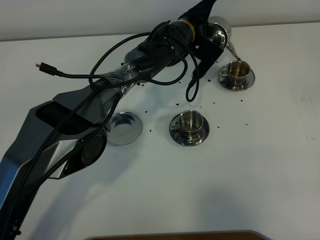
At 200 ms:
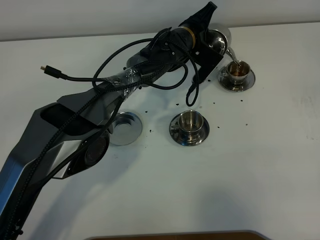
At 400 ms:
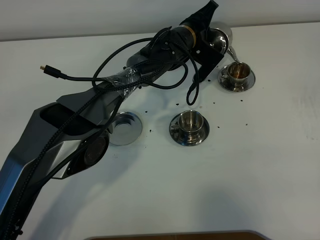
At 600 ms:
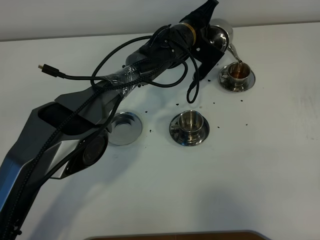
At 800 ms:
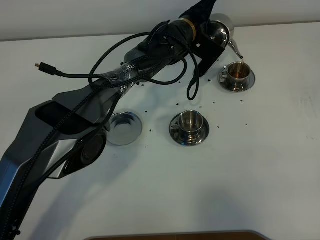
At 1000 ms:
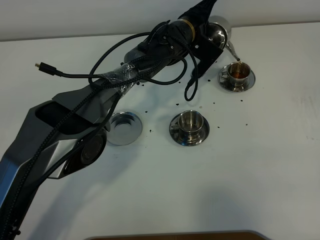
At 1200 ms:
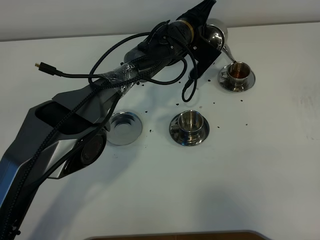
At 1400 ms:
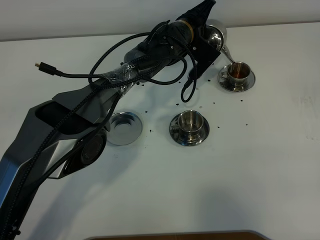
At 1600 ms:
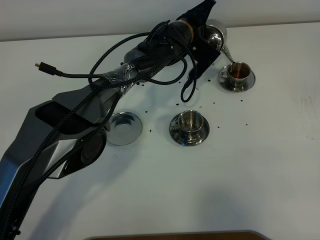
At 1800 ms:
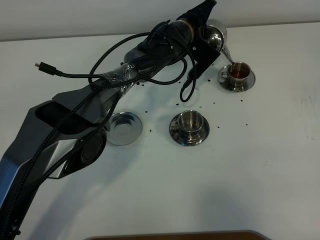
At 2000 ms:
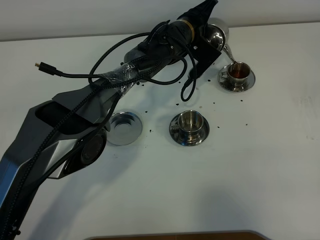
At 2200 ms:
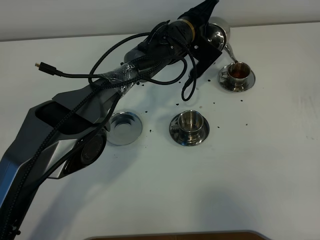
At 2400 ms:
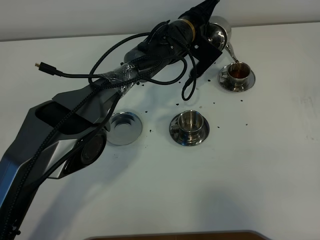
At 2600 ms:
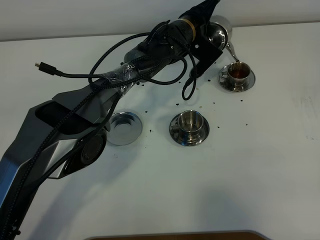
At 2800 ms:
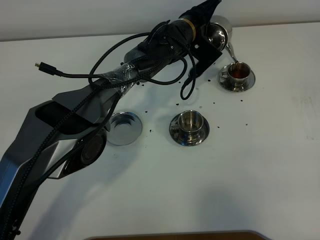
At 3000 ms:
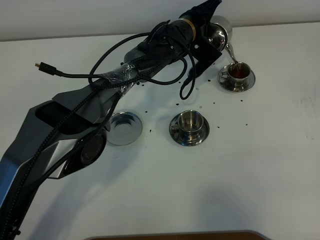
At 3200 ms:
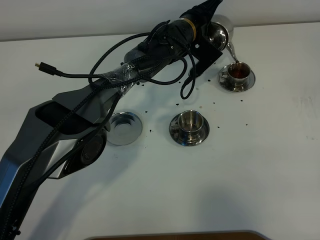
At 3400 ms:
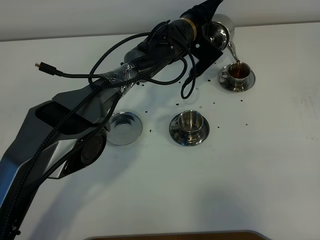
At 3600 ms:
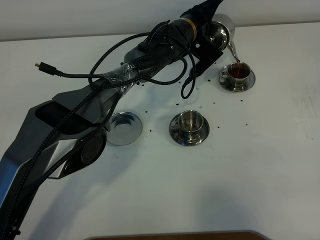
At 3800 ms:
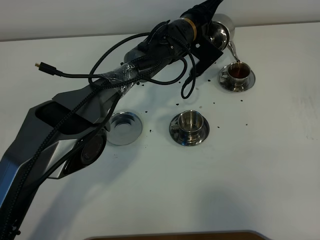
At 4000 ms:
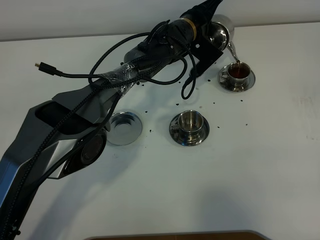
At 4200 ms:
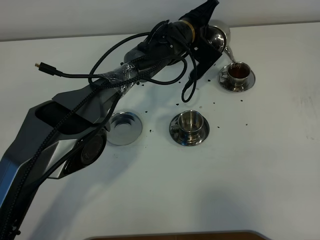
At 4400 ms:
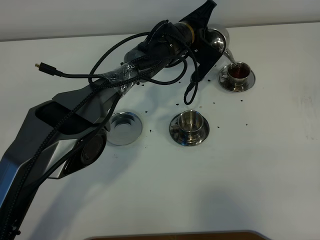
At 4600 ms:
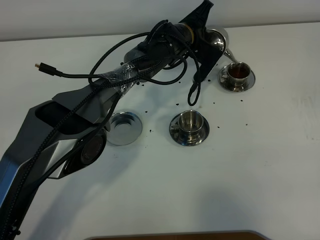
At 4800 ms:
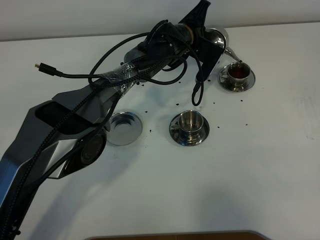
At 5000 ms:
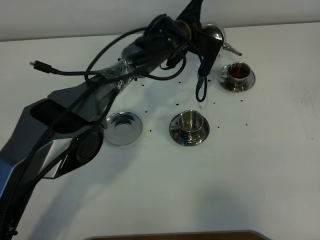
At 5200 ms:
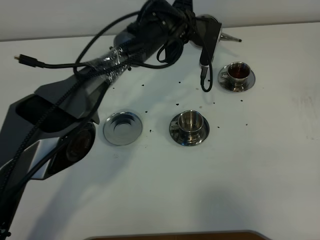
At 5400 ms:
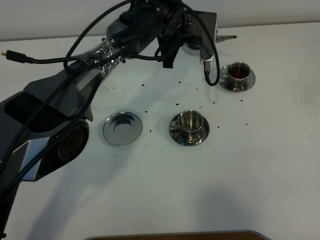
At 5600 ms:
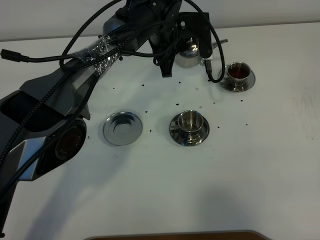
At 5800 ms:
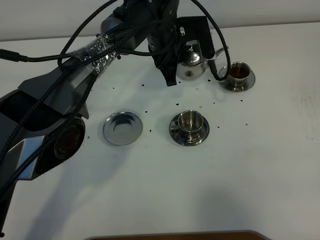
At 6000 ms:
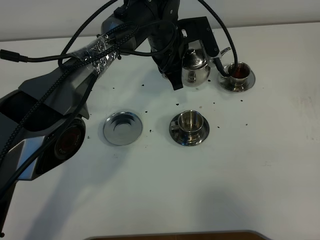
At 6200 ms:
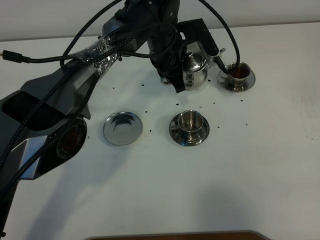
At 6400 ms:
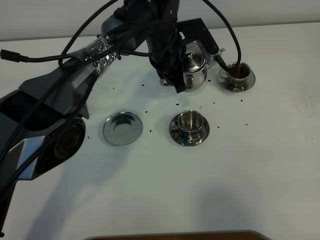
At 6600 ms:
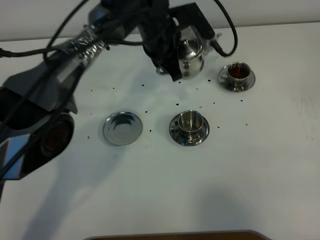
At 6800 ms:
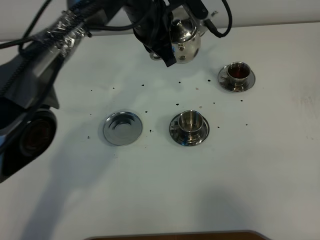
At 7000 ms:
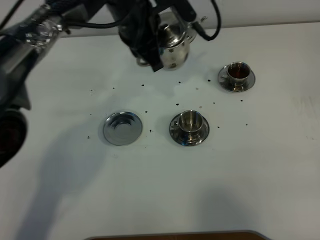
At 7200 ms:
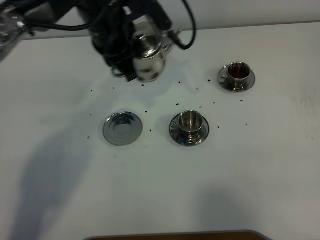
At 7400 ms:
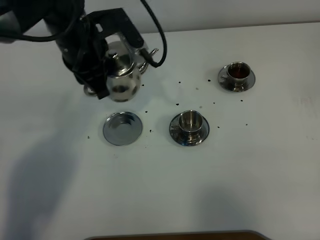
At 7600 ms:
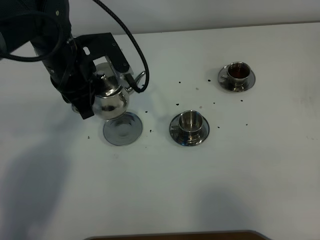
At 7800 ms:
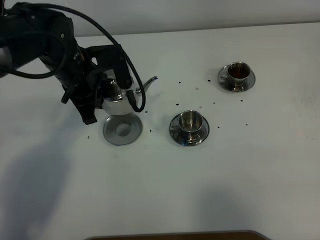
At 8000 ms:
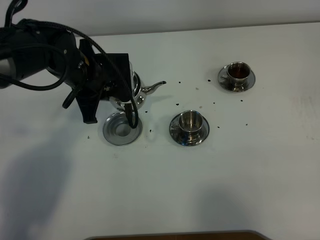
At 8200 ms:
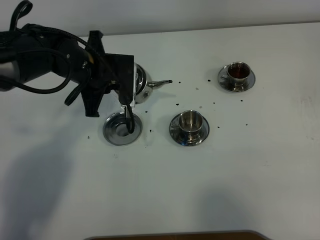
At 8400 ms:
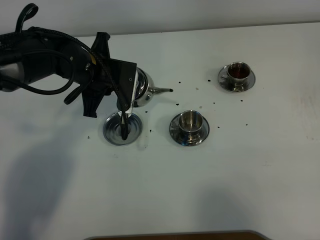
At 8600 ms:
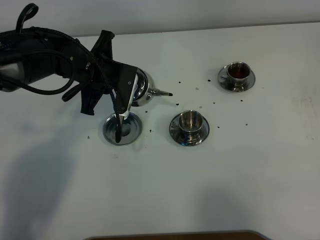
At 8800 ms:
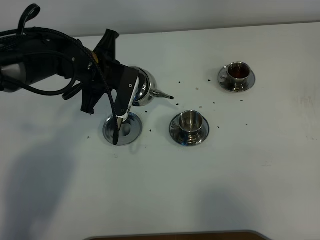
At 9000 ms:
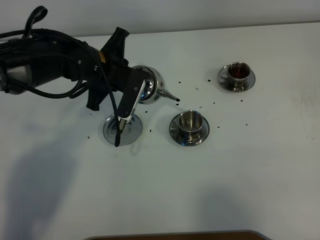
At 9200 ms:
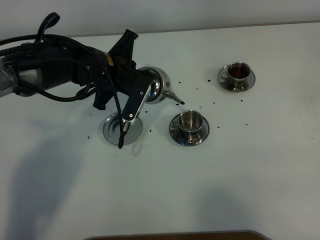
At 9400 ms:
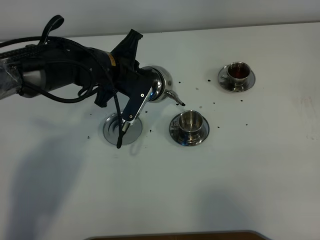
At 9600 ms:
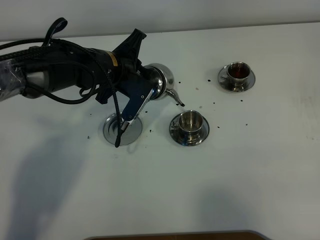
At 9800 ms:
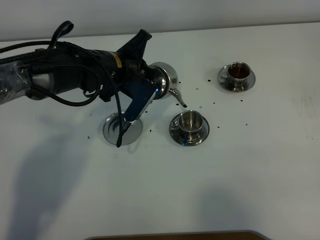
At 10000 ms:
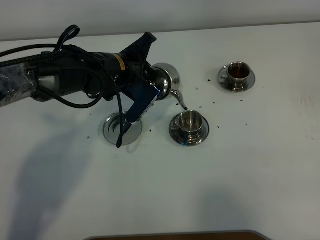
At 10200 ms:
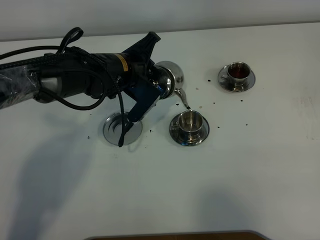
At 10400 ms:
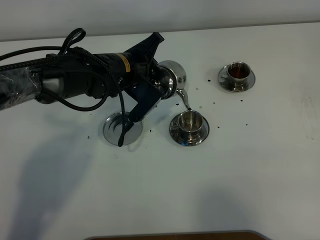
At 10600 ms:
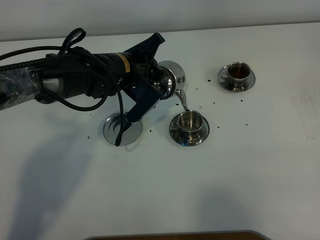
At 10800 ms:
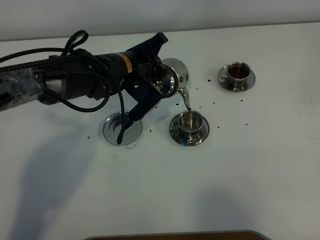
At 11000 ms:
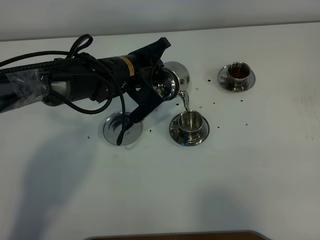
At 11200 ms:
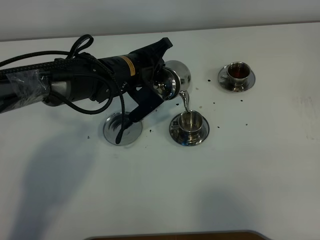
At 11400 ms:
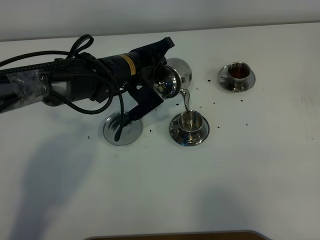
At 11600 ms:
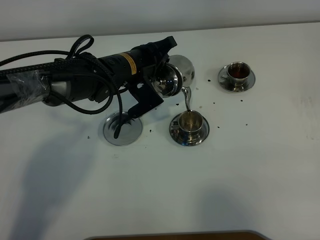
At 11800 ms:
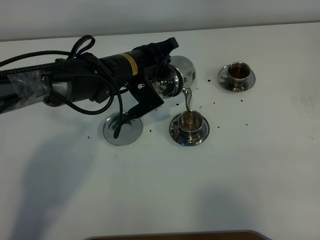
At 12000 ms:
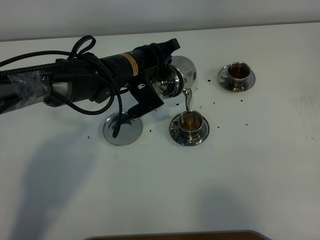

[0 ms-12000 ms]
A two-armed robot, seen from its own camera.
Task of the whole recording: grasp the stainless steel teapot and pour the tea into the two stainless steel teacups one by one, put the stainless steel teapot back in its original place.
0 ms to 1600 ms: Neither gripper changes place.
1600 ms to 4400 ms: The grippers stay close to where they were, moving slightly.
4400 ms to 6000 ms: The left gripper travels backward by about 5 cm.
6000 ms to 7600 ms: The left gripper is displaced to the left and backward by about 20 cm.
7600 ms to 9000 ms: The left gripper changes place by about 5 cm.

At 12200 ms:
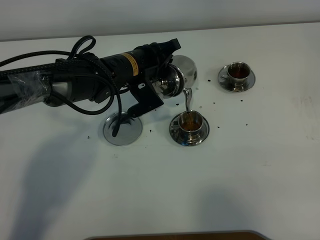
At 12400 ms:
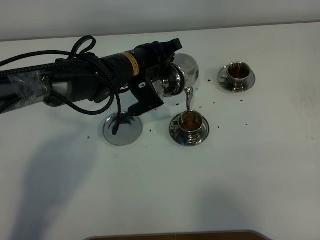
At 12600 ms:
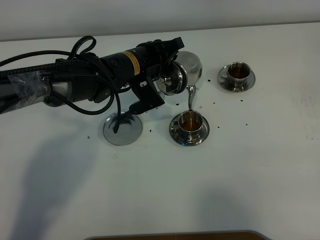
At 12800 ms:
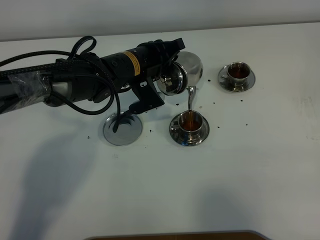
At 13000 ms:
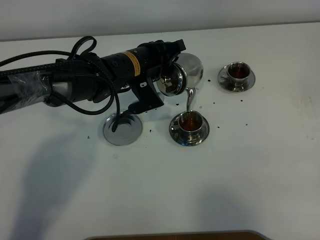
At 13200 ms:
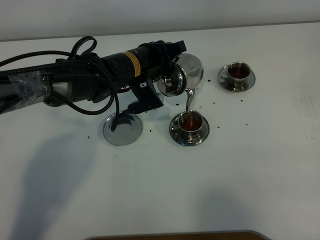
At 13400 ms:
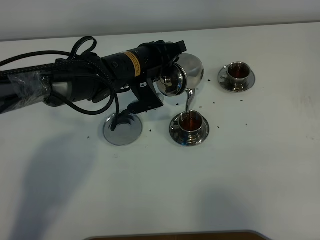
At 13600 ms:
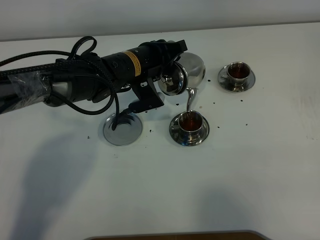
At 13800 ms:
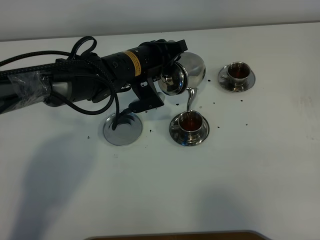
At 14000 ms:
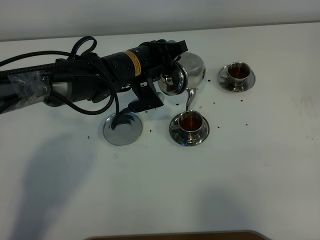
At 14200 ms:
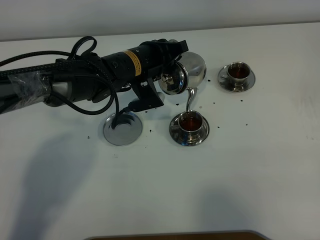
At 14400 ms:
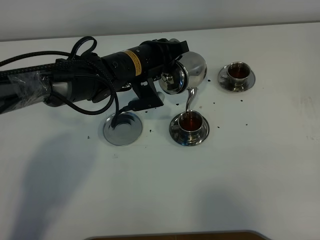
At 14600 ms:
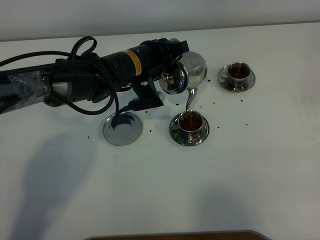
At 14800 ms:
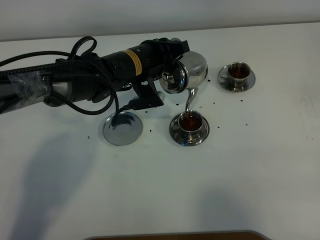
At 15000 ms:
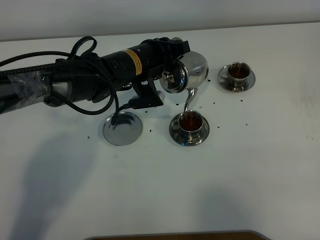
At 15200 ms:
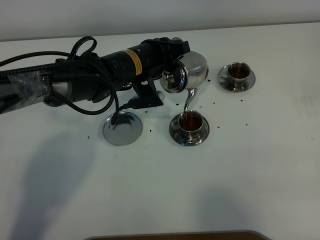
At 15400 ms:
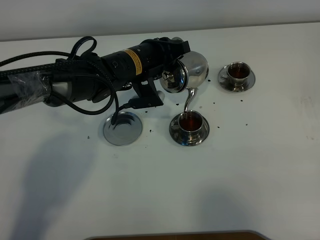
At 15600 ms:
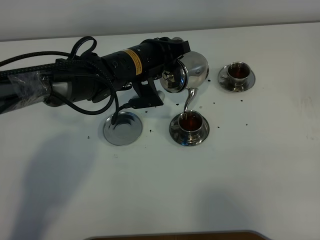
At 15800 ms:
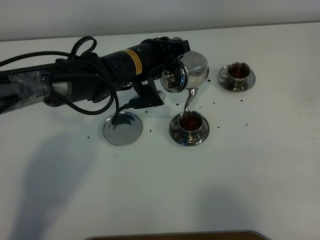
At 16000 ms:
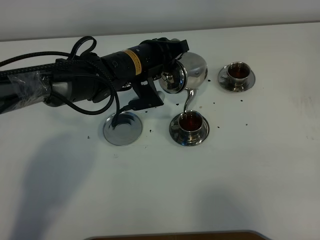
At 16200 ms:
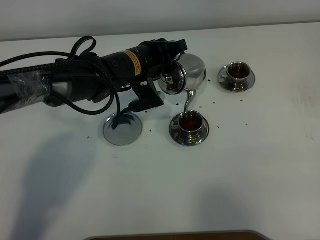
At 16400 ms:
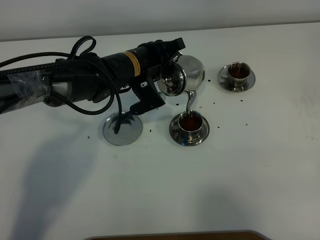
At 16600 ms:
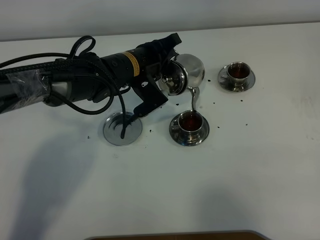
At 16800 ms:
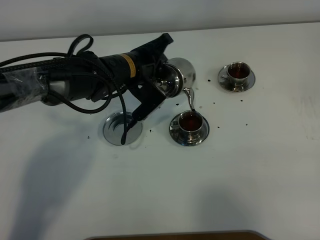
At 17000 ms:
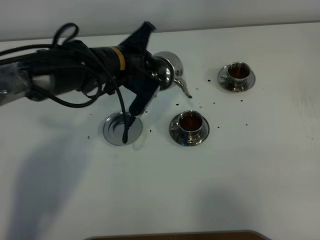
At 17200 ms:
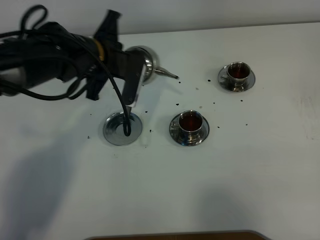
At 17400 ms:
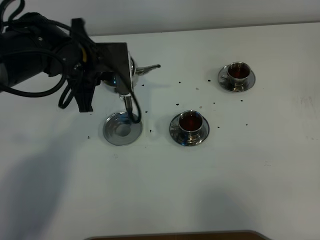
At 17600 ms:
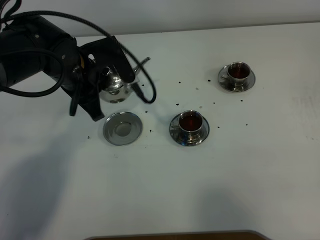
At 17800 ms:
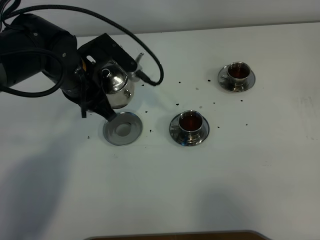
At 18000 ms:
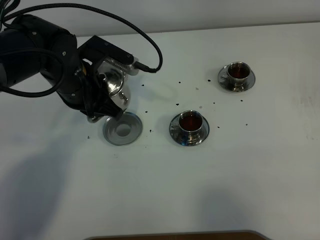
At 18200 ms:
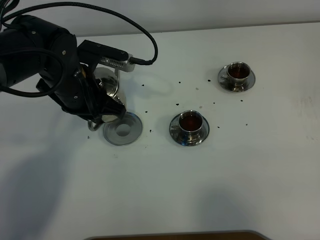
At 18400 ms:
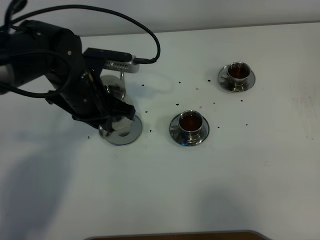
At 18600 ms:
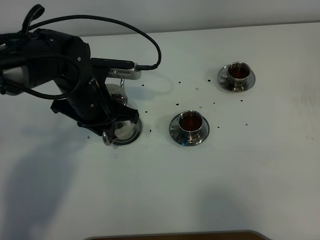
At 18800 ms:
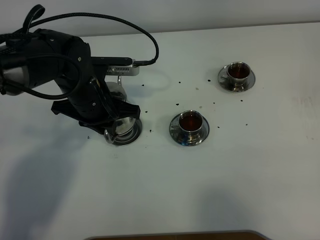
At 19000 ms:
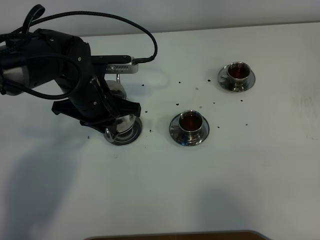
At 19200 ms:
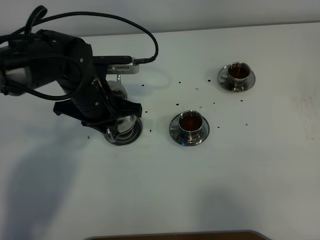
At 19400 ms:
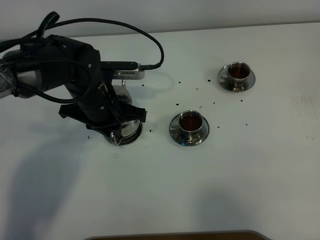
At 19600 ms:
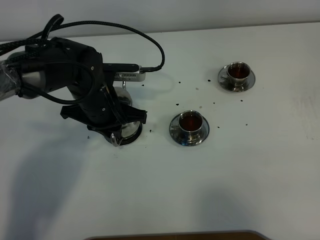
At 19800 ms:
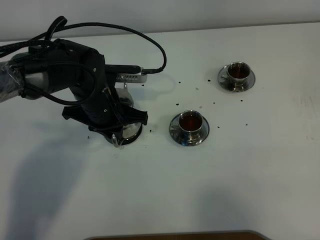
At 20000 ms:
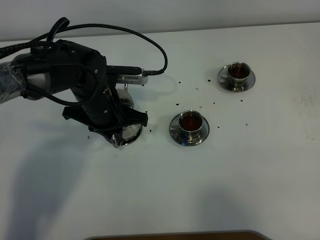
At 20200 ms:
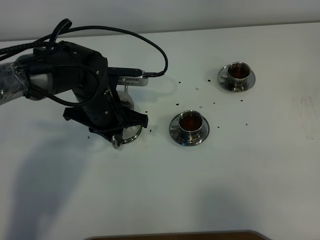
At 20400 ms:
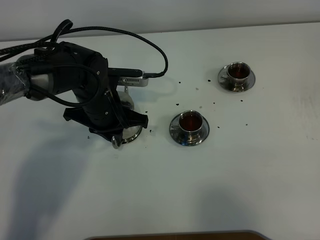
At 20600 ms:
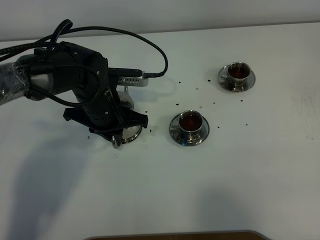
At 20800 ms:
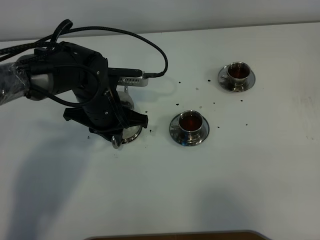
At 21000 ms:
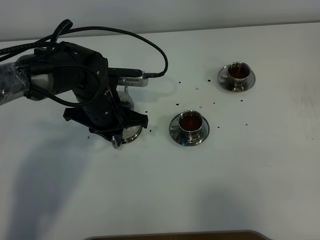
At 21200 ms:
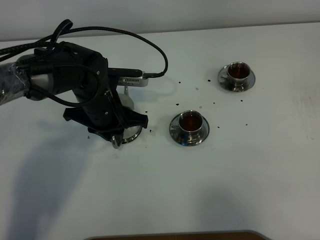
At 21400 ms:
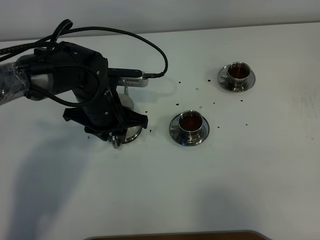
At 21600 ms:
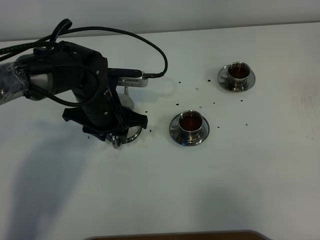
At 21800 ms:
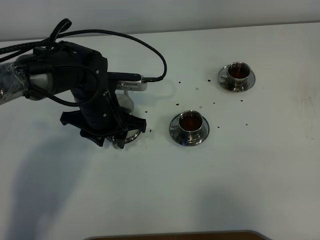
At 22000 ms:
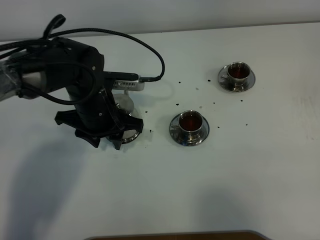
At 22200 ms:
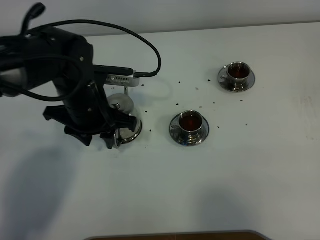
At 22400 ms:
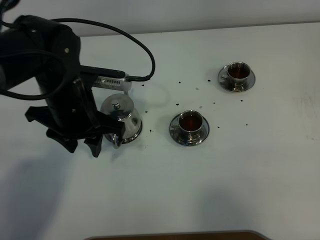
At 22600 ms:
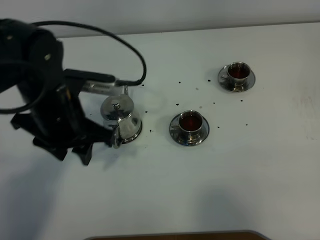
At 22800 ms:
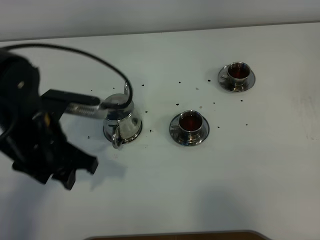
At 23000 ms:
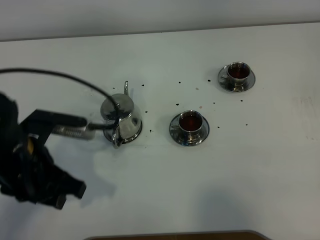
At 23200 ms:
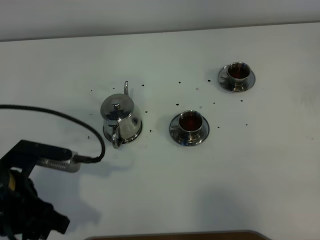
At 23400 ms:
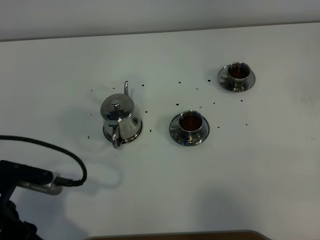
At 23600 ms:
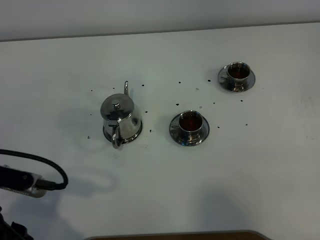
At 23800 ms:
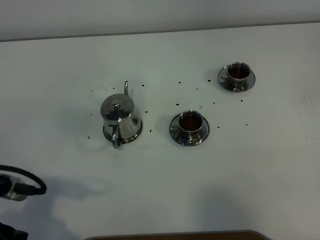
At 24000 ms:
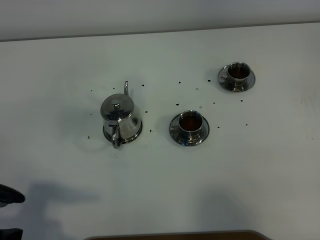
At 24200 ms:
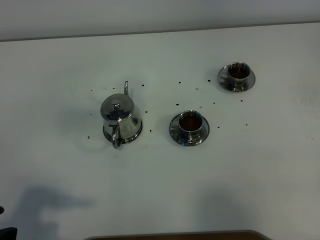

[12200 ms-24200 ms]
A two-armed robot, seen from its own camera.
Task of the whole recording: grasp the stainless steel teapot and pour the tea into the two stainless steel teacups one by one, put the stainless steel teapot back in its original place.
Step, 12200 ms to 17000 ms: Pour tea into the teacup with the left gripper.
12200 ms to 15200 ms: The grippers move only a little.
16600 ms to 18200 ms: The left gripper is displaced to the left and backward by roughly 10 cm.
18200 ms to 19800 ms: The left gripper shifts about 5 cm downward.
19800 ms to 21200 ms: Both grippers stay put.
21200 ms to 22600 ms: The left gripper goes about 10 cm upward and backward, and opens.
22600 ms to 24200 ms: The left gripper travels backward and to the left by about 25 cm.
